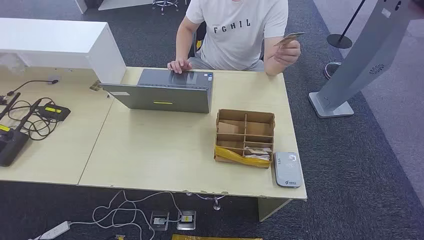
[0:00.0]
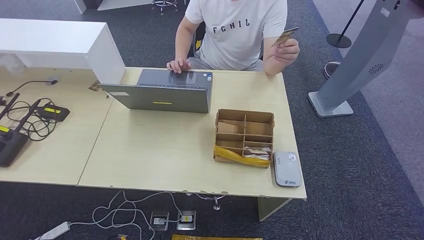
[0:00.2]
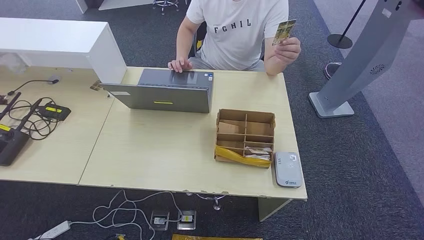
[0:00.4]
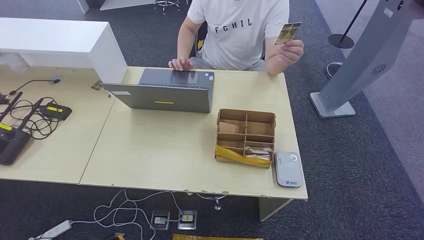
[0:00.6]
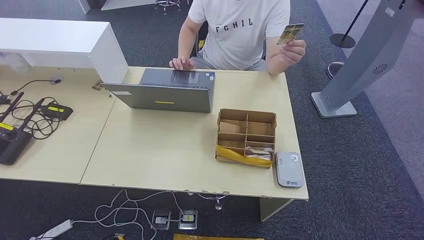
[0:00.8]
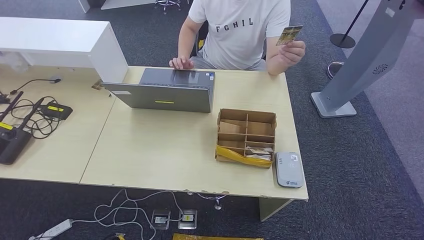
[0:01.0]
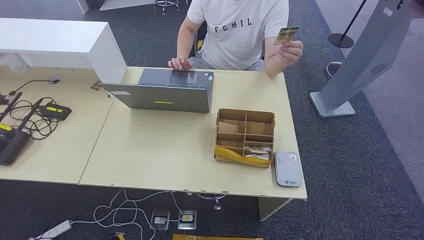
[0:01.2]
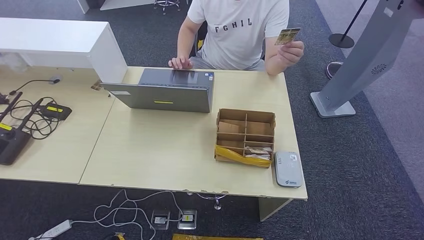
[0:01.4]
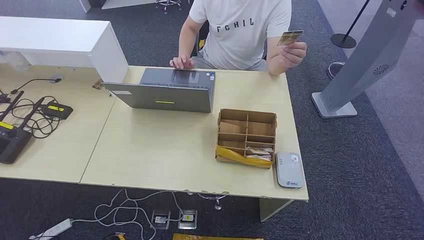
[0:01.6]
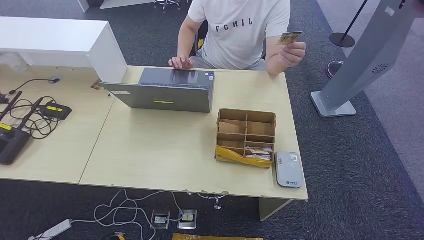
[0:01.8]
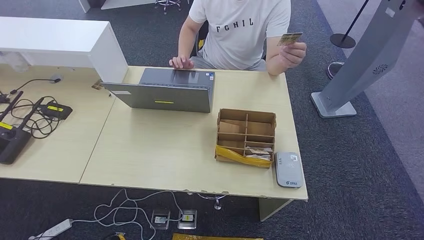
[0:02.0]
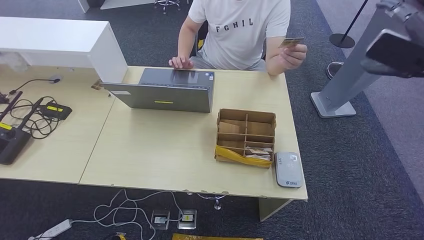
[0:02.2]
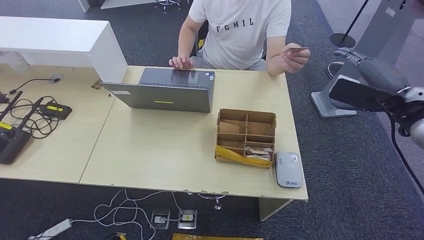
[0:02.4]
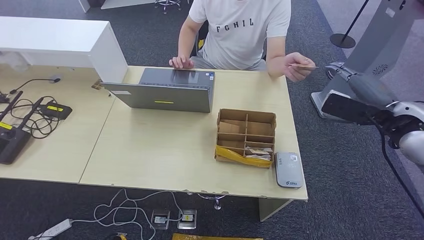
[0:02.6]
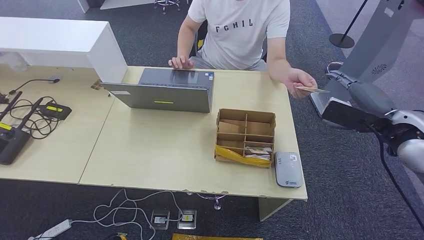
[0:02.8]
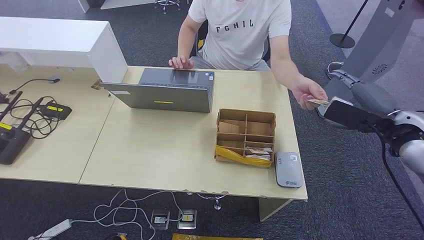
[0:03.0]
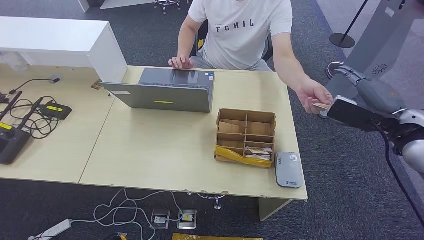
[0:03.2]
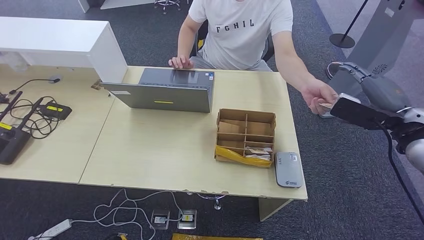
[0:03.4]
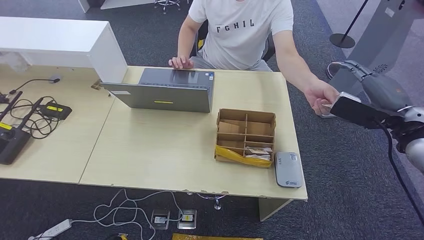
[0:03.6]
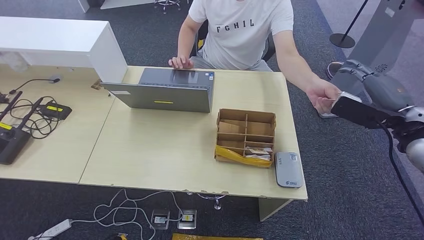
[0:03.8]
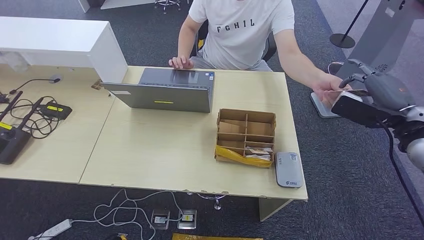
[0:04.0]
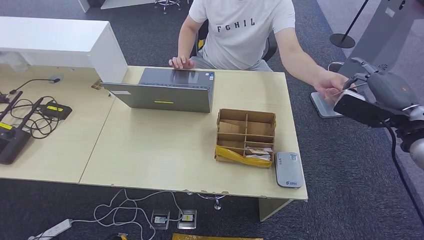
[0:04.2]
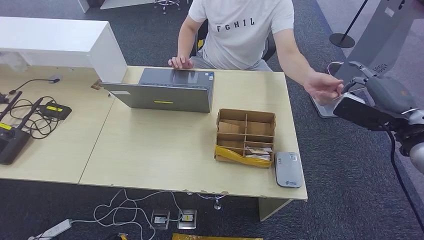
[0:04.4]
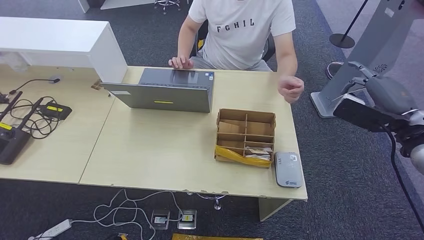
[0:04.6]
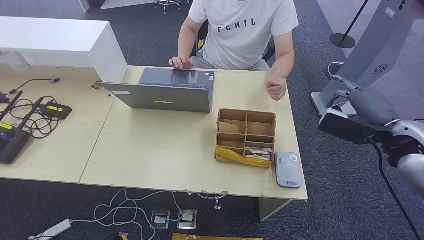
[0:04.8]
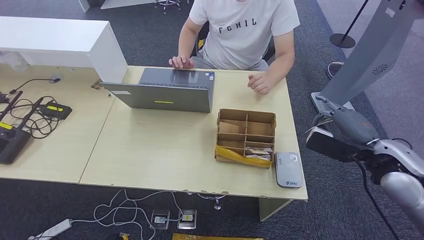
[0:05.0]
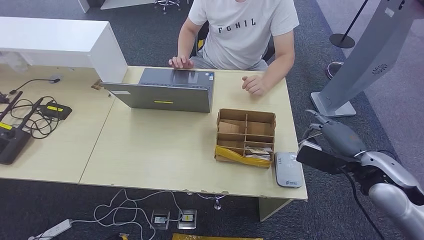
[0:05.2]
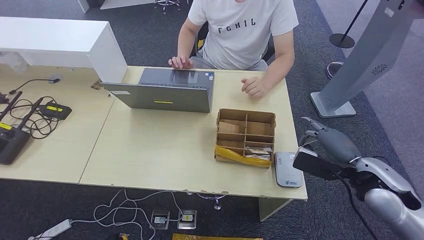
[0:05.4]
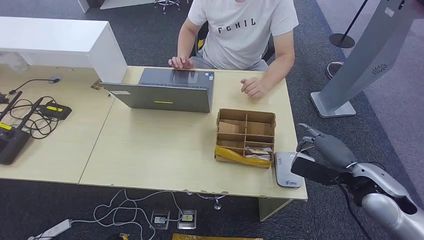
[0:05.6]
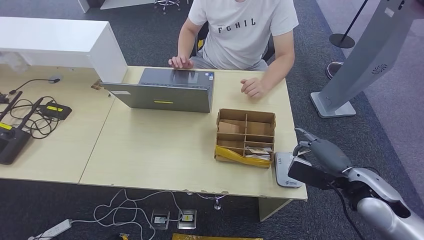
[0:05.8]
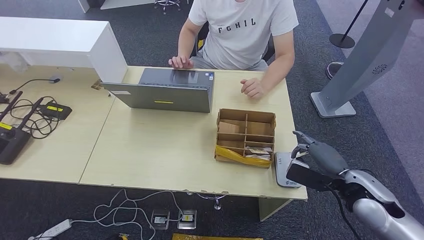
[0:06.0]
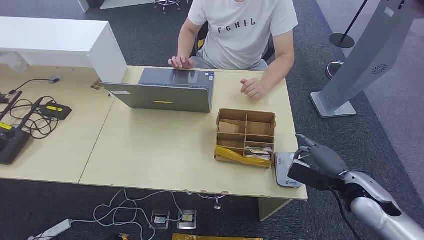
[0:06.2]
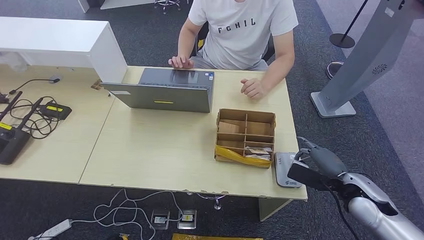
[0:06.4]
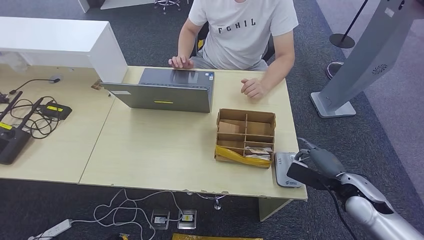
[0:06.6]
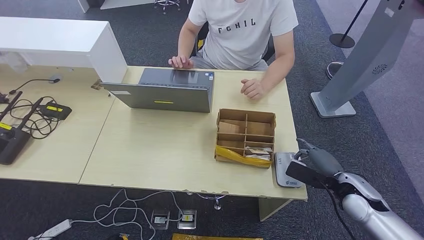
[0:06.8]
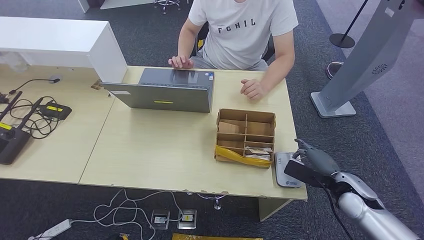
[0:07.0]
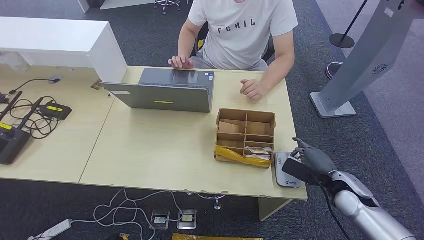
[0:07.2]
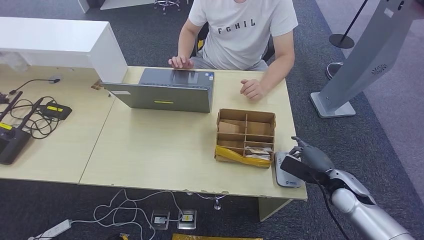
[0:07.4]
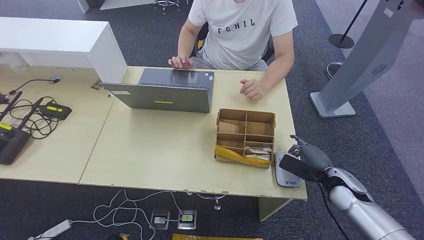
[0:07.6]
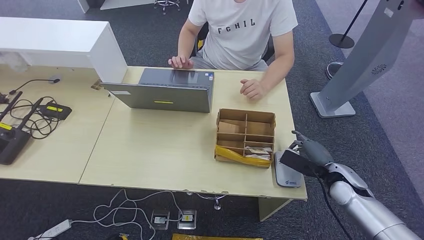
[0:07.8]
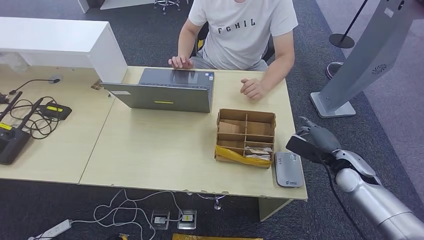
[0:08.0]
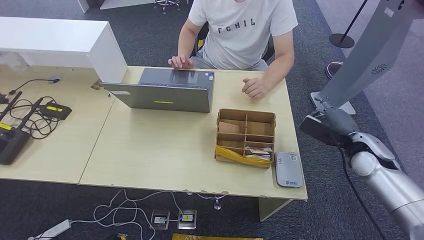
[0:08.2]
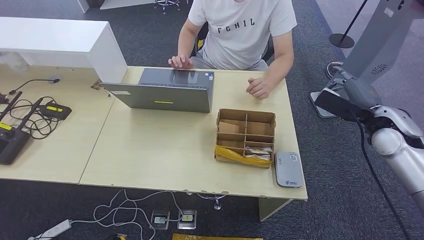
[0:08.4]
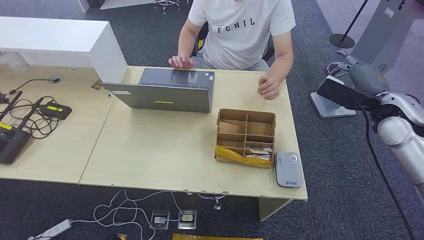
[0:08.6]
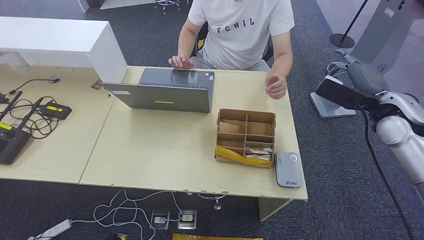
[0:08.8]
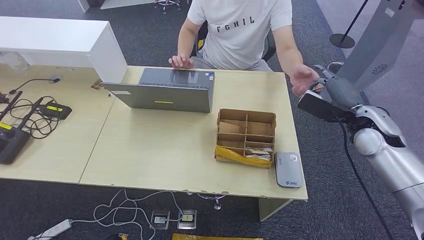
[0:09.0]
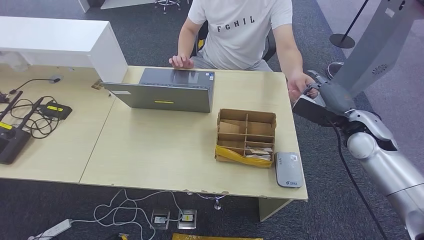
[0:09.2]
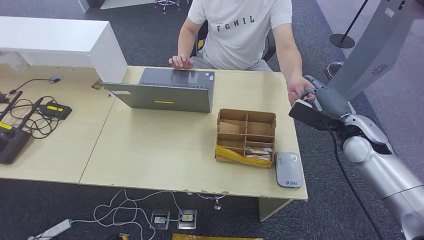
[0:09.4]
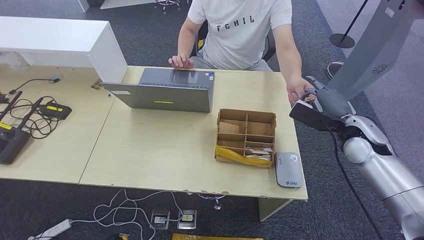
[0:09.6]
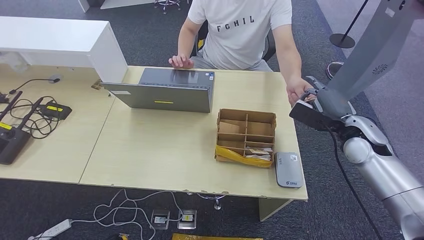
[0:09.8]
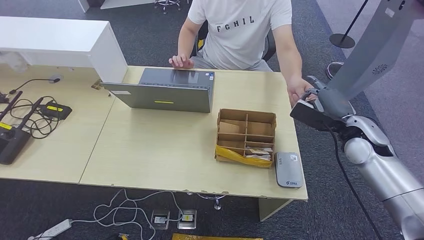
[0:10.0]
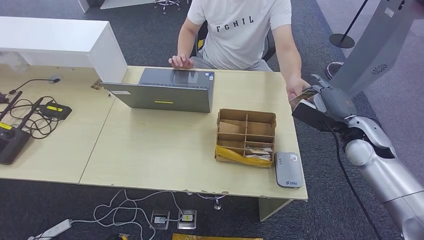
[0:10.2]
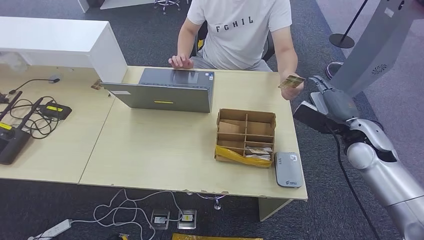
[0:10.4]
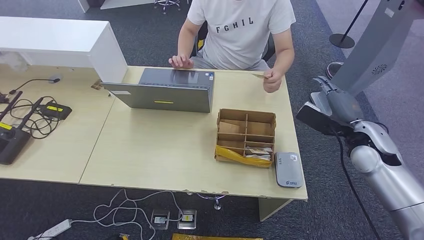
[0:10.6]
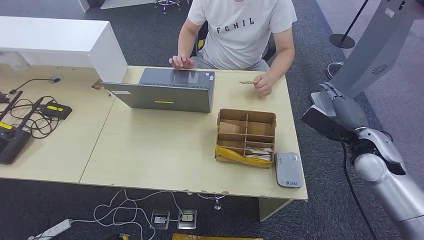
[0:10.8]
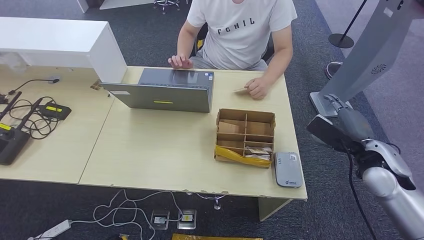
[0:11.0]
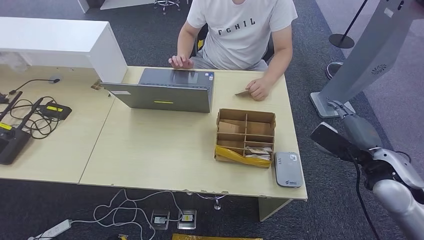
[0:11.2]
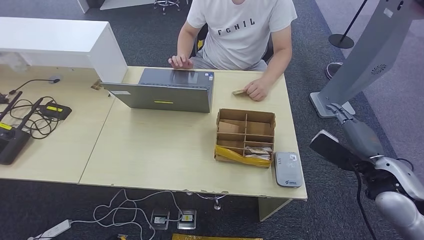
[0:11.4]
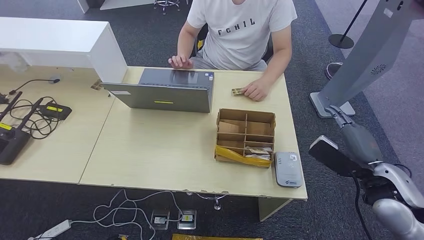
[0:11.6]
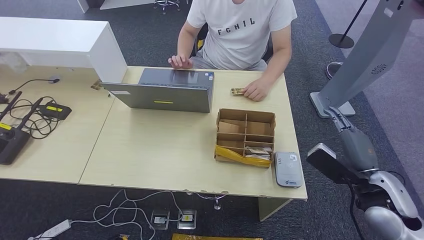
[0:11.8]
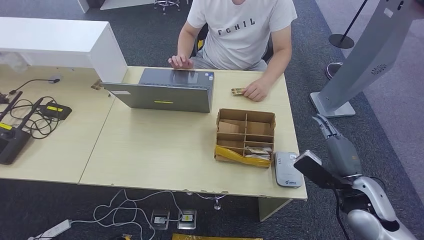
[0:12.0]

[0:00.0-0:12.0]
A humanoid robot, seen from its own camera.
Step, 0:00.0 to 0:04.8: Take the ID card from the person's hand.
Step, 0:05.0 to 0:08.0: Place the ID card on the card reader.
Step, 0:08.2 to 0:10.6: Hand the ID card to the person.
0:01.6 to 0:03.0: The right hand heads downward and to the left, covering approximately 25 cm.
0:03.0 to 0:04.4: There are only small adjustments of the hands.
0:04.4 to 0:06.0: The right hand shifts roughly 15 cm downward and to the left.
0:06.0 to 0:07.6: The right hand goes some 10 cm downward.
0:07.6 to 0:09.0: The right hand heads upward and forward, covering about 20 cm.
0:09.0 to 0:10.4: The hands move only a little.
0:10.4 to 0:12.0: The right hand moves backward and downward, approximately 15 cm.

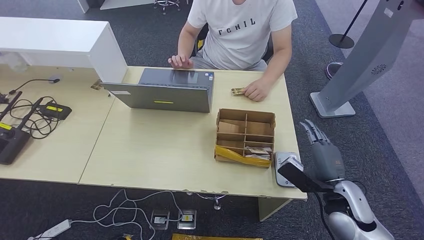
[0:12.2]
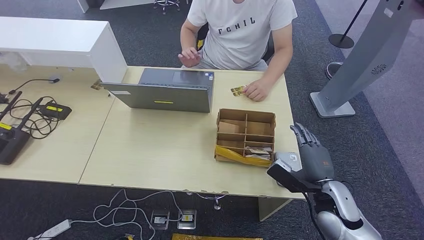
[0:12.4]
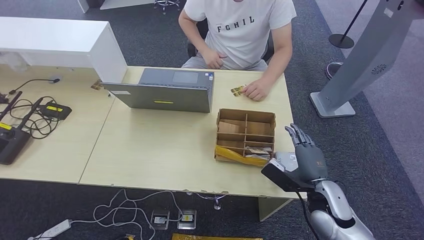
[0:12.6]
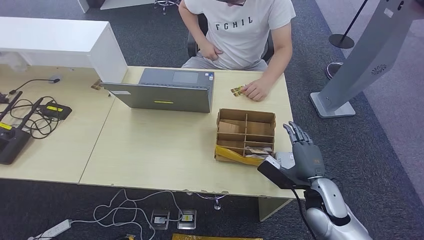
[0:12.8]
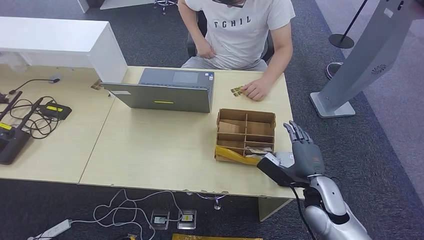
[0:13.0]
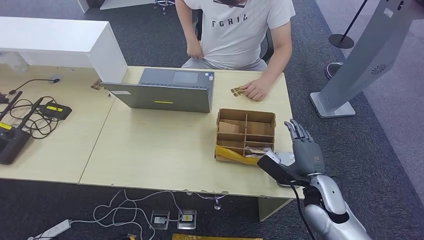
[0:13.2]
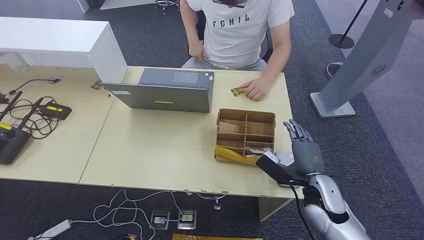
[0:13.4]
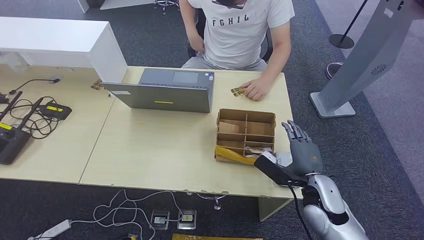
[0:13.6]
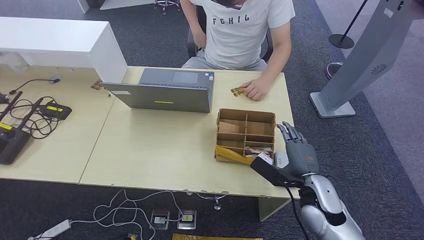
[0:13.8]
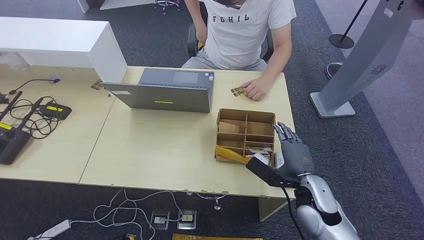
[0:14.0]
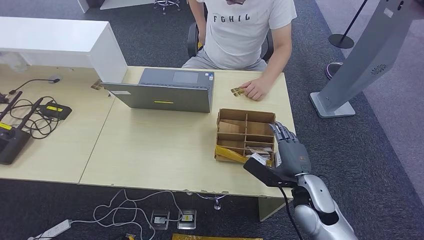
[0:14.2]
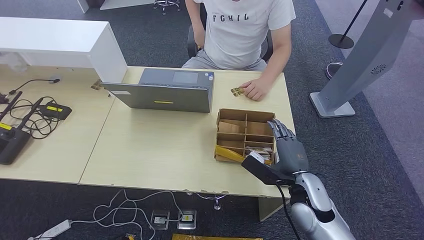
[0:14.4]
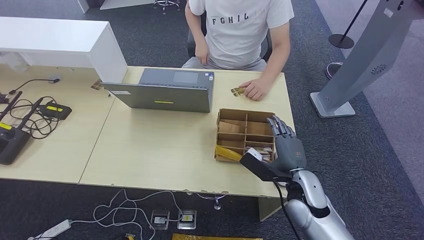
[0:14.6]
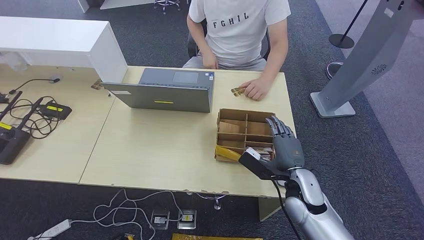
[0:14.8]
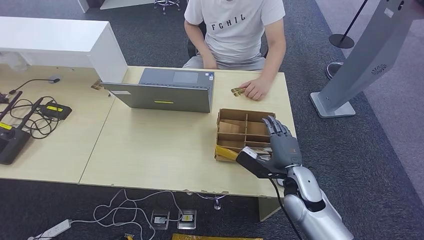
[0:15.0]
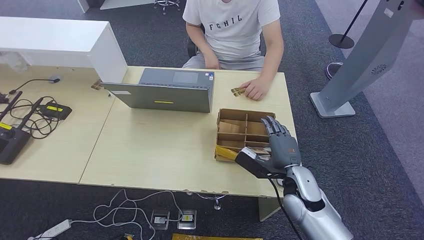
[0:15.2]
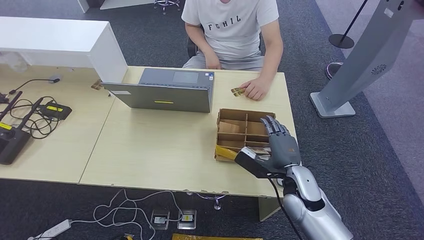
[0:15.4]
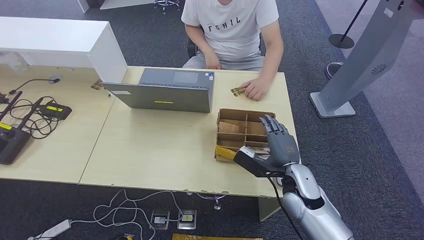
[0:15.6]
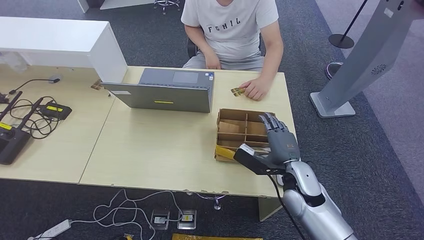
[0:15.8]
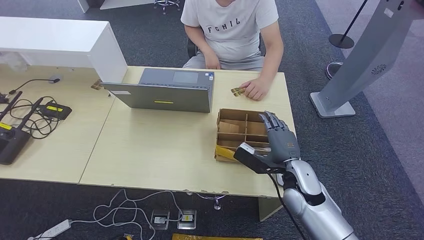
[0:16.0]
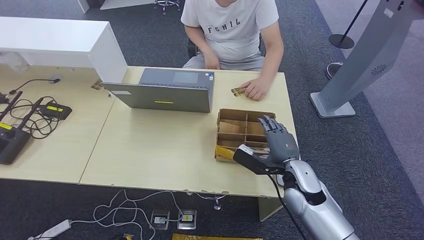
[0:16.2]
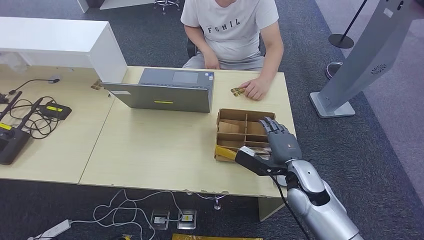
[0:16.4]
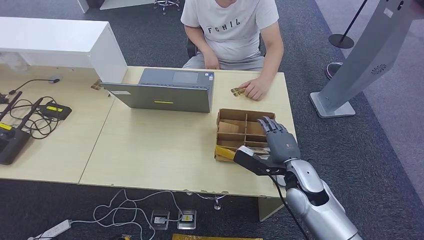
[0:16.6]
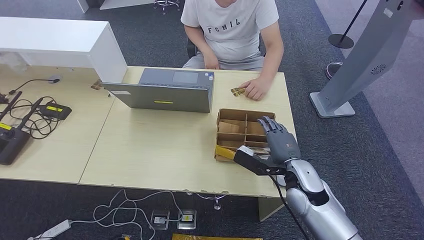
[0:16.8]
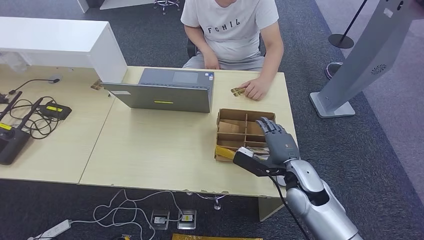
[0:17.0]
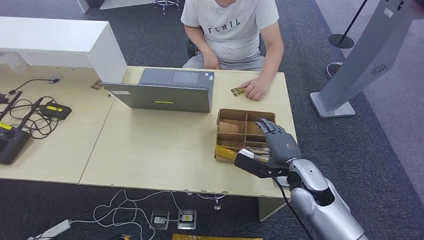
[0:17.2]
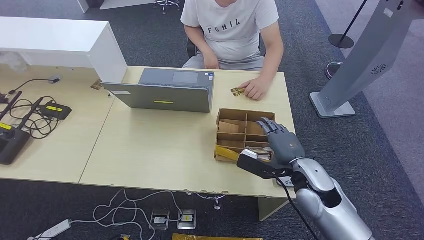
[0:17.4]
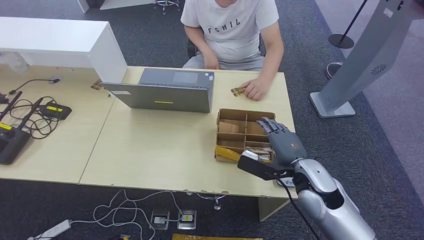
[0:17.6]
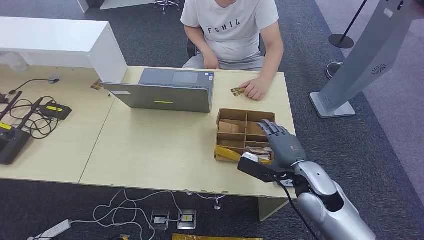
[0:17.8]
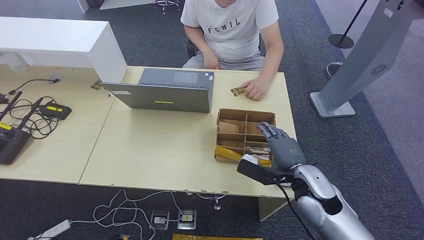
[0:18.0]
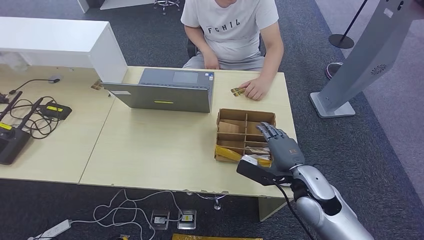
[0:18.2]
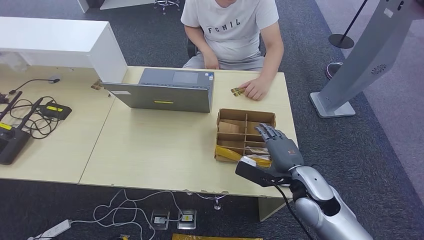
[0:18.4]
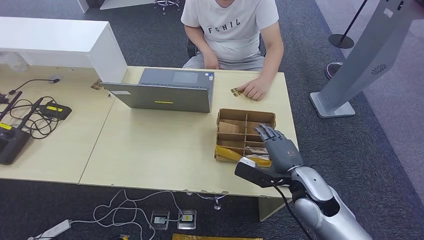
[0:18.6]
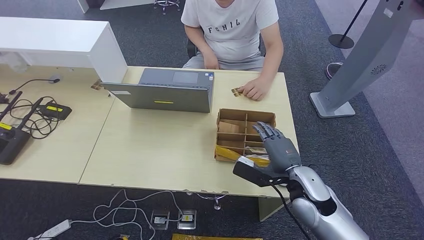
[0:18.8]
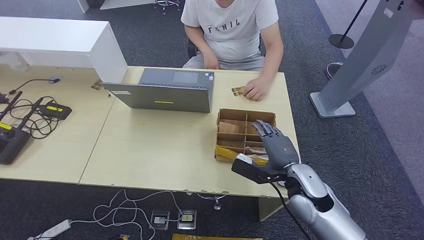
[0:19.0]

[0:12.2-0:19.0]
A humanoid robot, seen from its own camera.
0:12.2 to 0:13.6: The right hand ends up roughly 5 cm from where it was.
0:13.6 to 0:19.0: The hands make only small movements.
